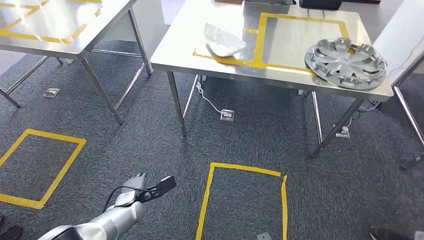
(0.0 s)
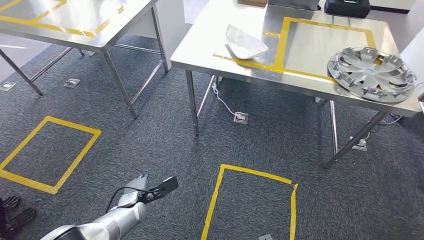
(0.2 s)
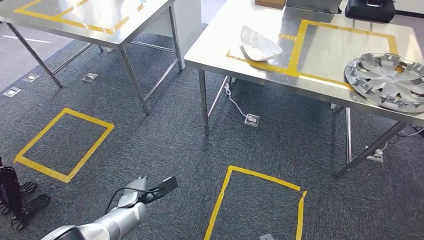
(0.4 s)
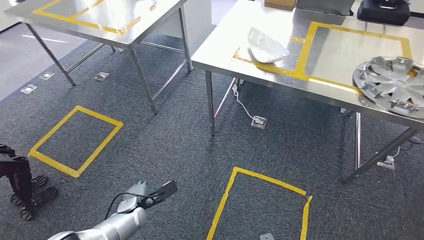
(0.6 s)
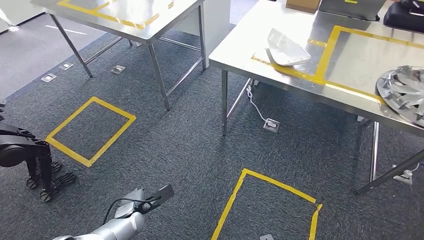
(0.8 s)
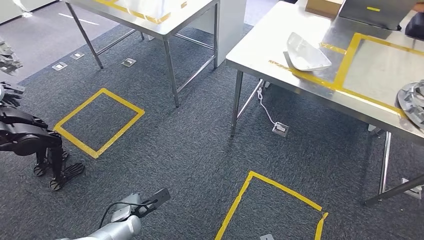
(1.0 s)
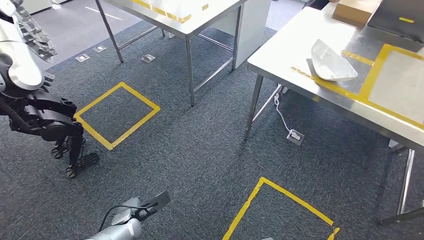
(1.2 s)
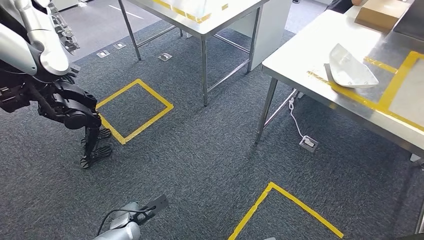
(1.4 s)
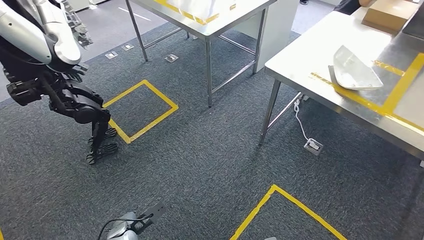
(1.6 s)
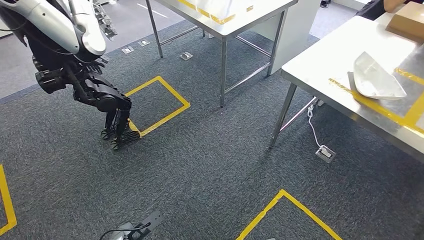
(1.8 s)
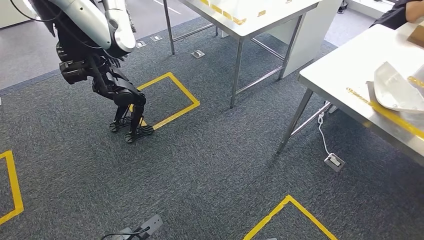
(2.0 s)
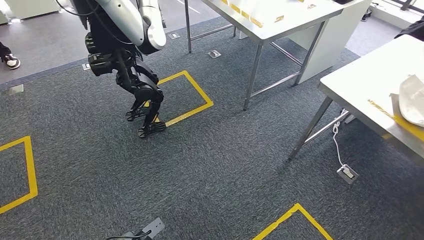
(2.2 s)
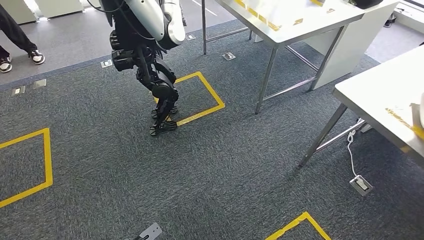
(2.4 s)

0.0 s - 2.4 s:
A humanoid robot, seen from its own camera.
Step, 0.0 s - 2.4 s: Return to the initial position at the workbench.
